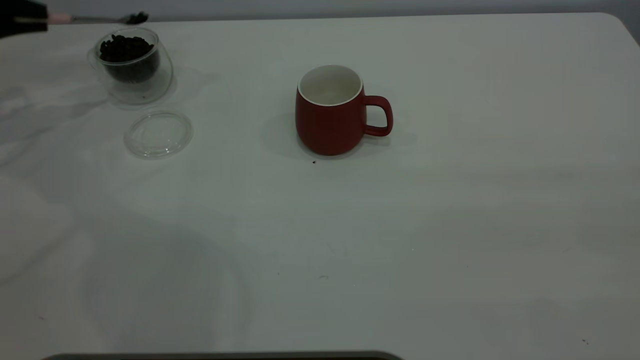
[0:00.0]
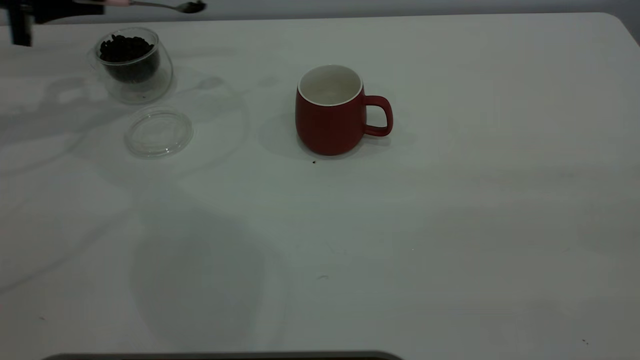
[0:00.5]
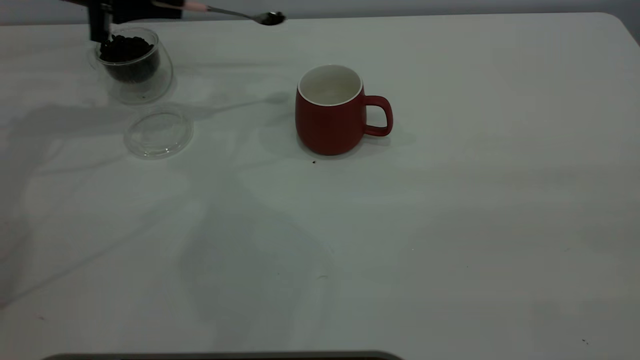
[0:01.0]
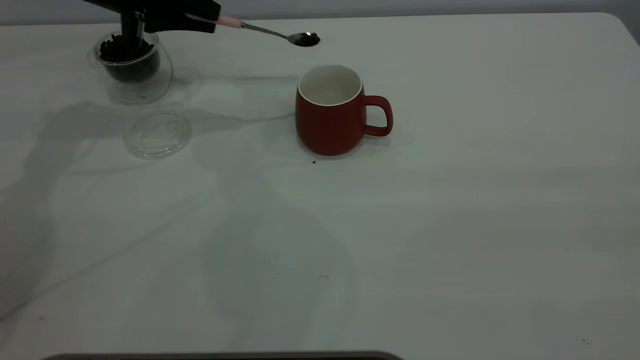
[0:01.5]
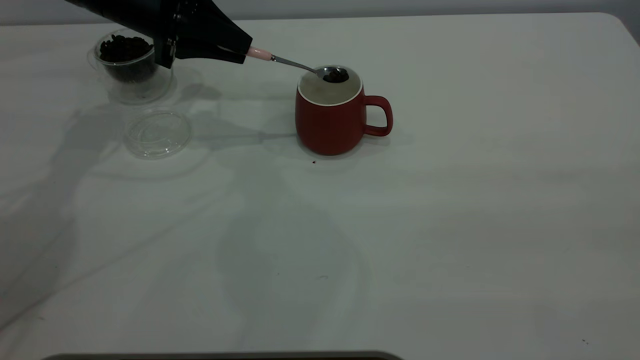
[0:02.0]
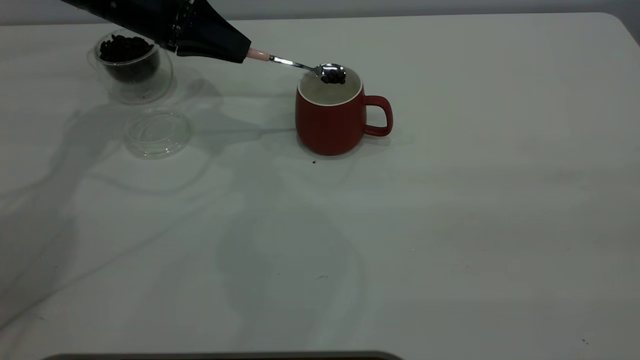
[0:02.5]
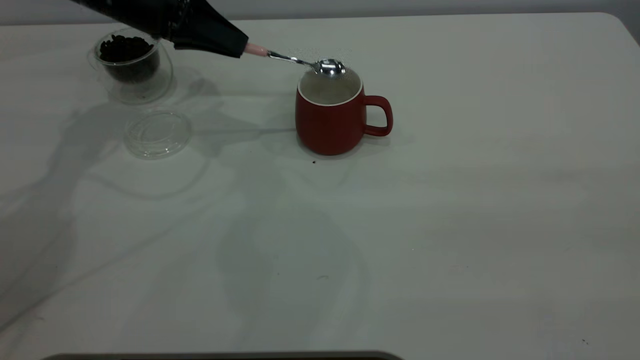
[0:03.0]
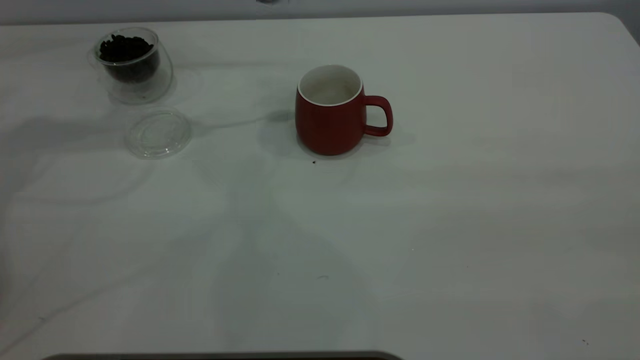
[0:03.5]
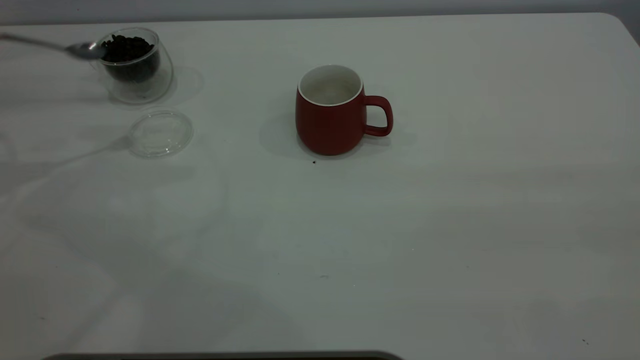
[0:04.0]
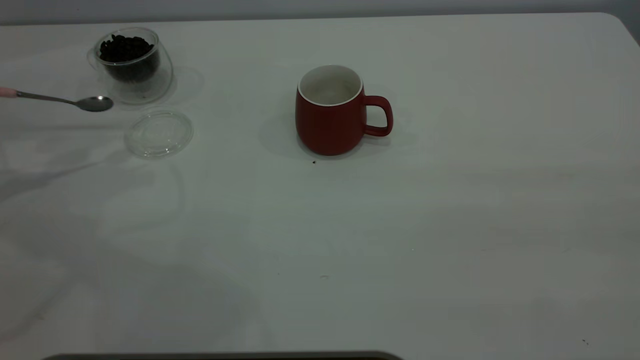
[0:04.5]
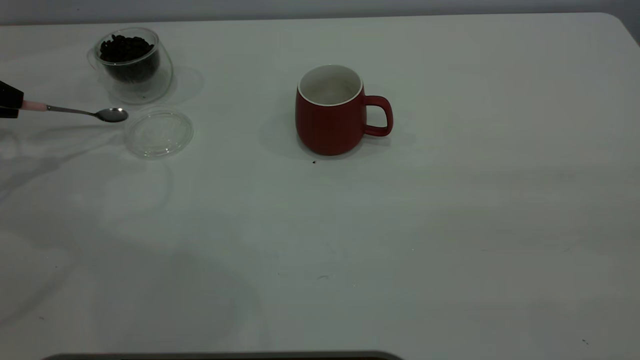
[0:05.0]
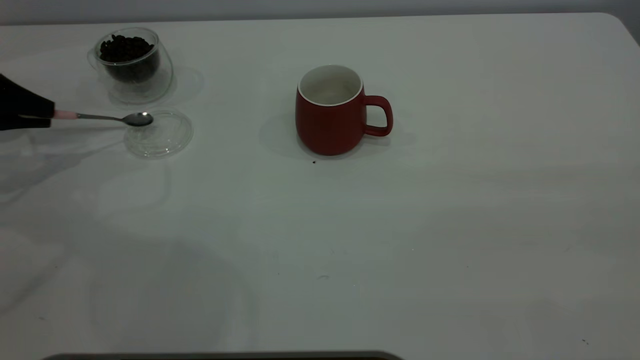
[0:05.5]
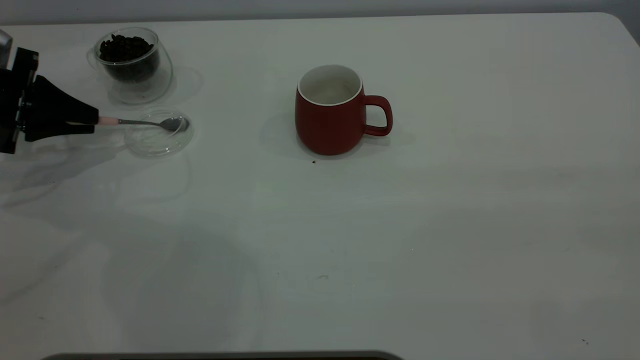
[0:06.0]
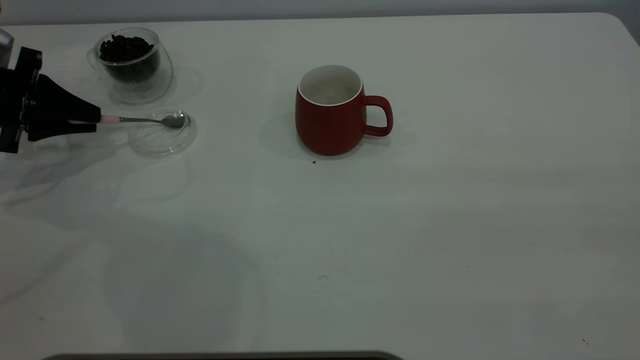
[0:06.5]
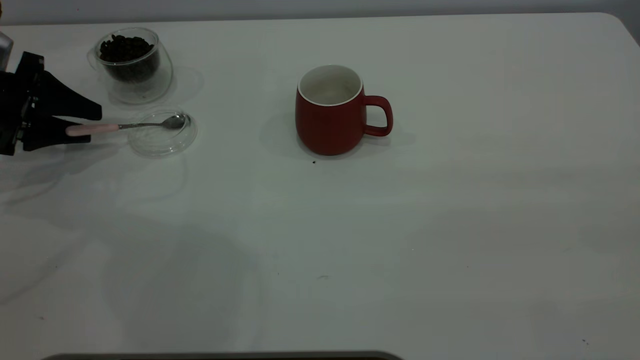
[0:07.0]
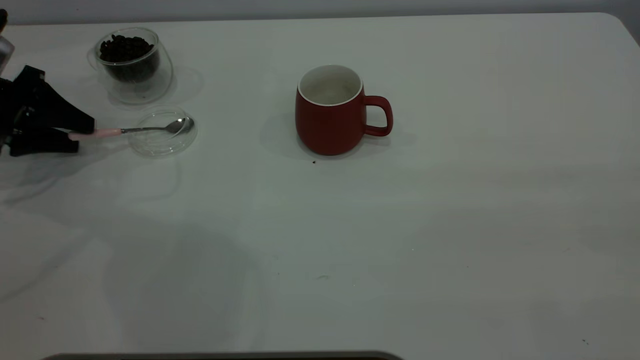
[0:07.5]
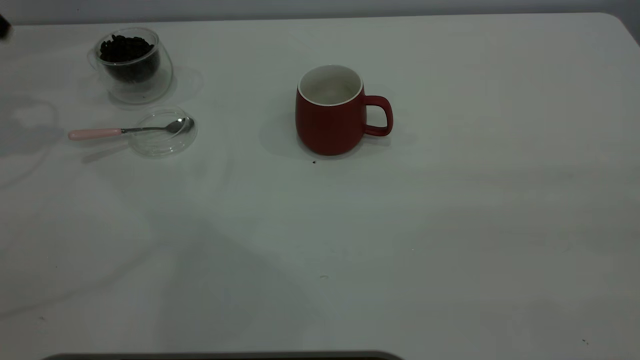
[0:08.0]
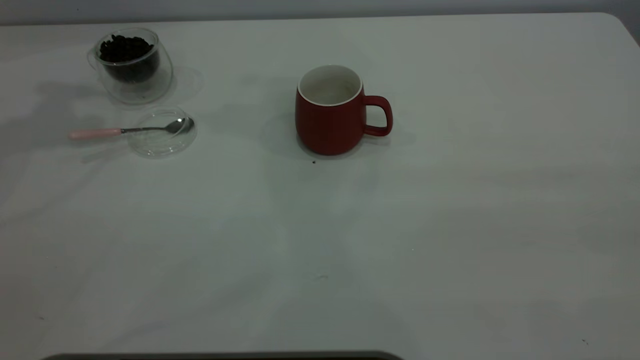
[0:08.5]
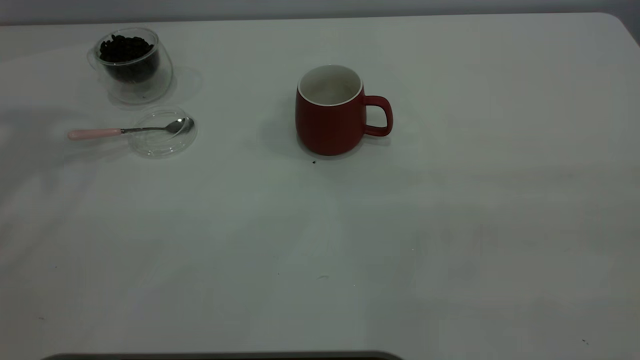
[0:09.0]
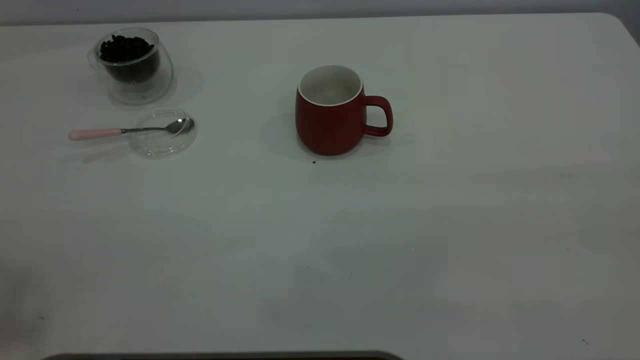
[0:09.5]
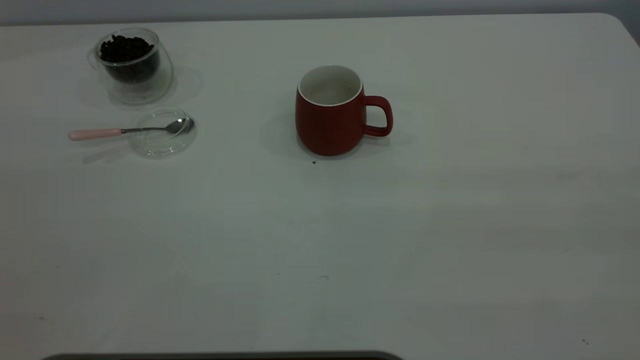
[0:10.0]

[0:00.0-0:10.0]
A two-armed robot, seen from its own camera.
Task of the whole recording: the right gripper place the red cup in the center of the table, the left gripper take the pink spoon from the cup lid and scoop out the coffee beans from the coffee cup and put them into the red cup, the left gripper put the spoon back into the cup lid.
Step, 0:00.0 to 0:03.0: Scoop a spoonful of beans into the cup.
Step, 0:03.5 to 0:07.5: Place the spoon back in its original place.
0:00.0 to 0:02.0: The left gripper is displaced to the right by about 25 cm.
0:02.0 to 0:04.0: The left gripper is displaced to the left and backward by roughly 25 cm.
0:04.0 to 0:06.0: The left gripper travels downward by about 15 cm.
0:06.0 to 0:08.0: The left gripper heads upward, covering some 15 cm, and opens.

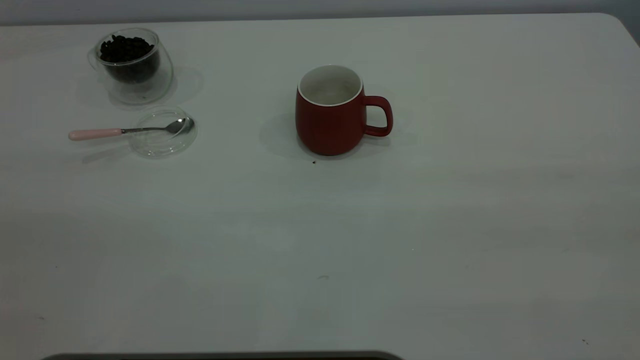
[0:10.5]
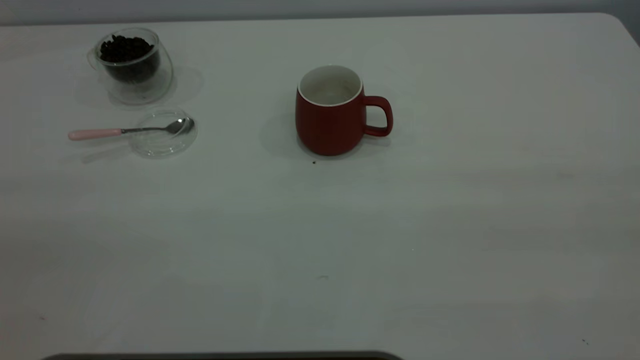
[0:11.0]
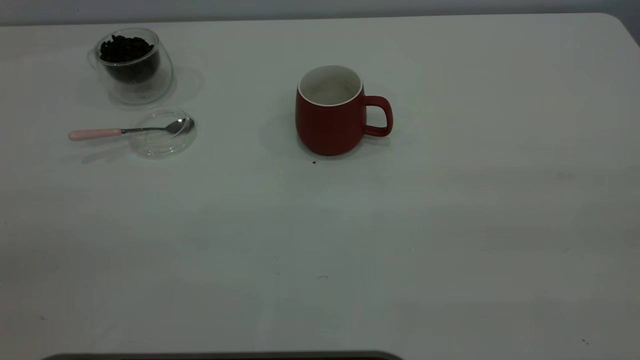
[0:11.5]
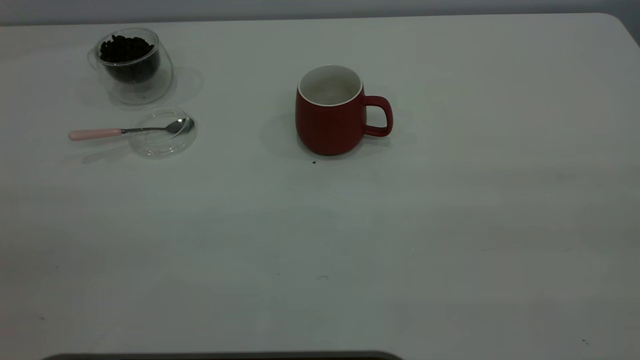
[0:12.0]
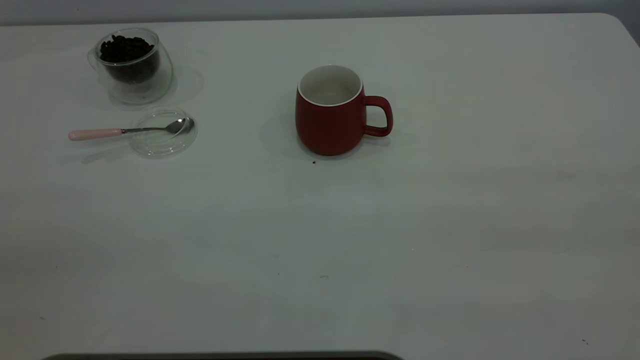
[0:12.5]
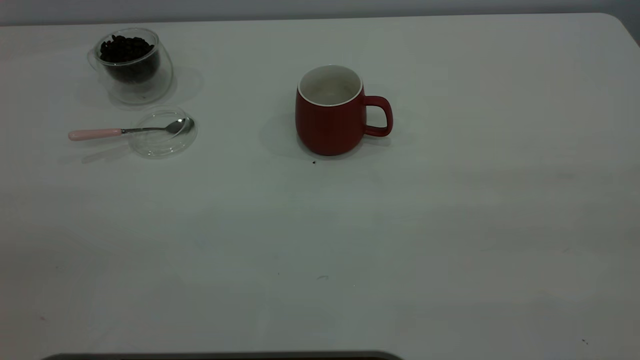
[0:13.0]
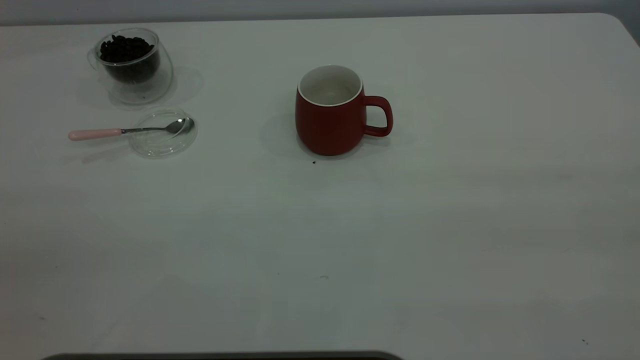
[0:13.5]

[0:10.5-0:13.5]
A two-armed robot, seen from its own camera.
Task of the whole recording: the right gripper place the red cup in the center of the table, the left gripper take the pink spoon from the cup lid and scoop out the coffee beans from the coffee cup and put them into the red cup, the left gripper put the spoon back into the cup lid.
0:12.0 to 0:13.5: Neither gripper changes place.

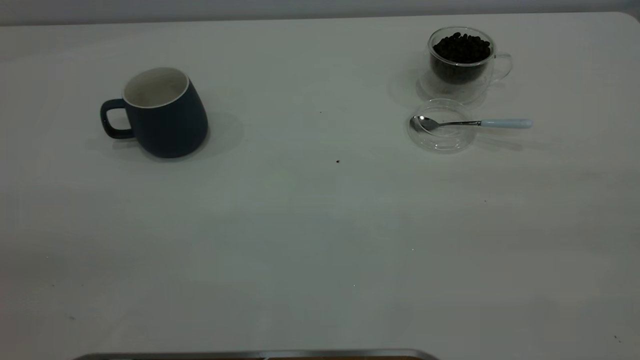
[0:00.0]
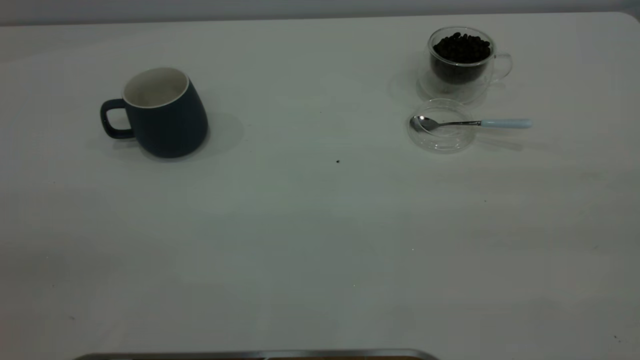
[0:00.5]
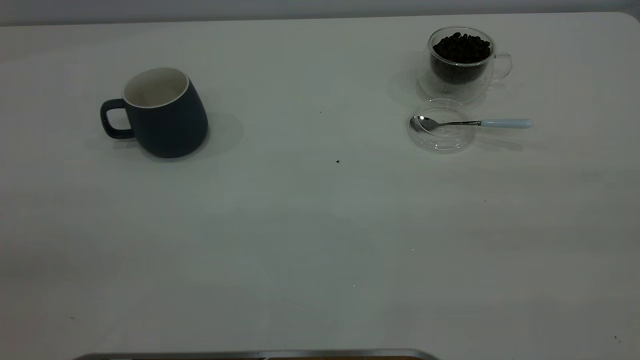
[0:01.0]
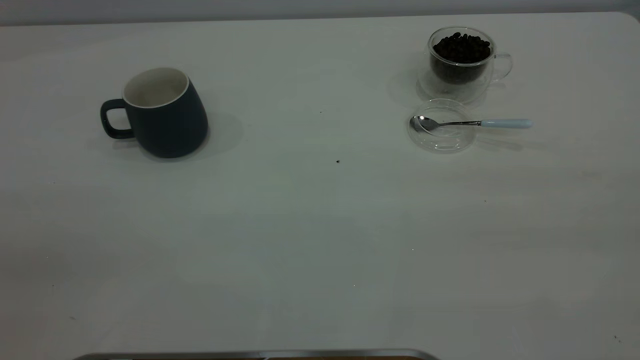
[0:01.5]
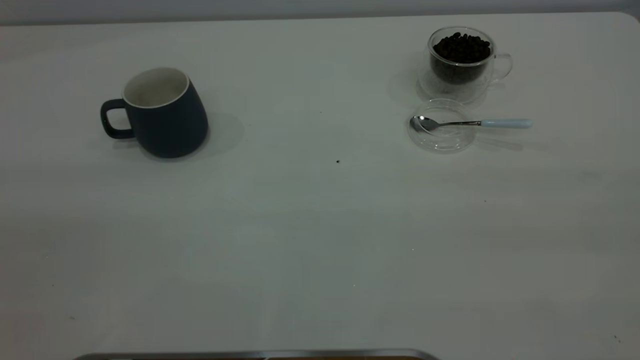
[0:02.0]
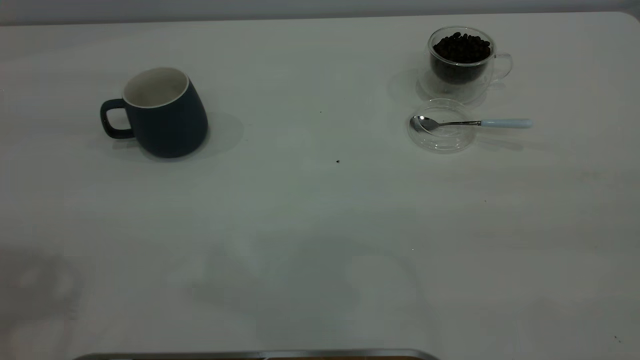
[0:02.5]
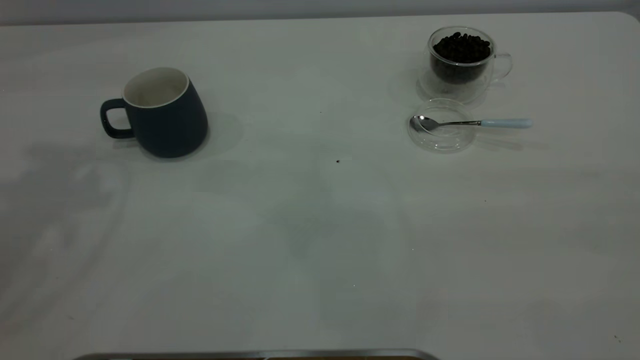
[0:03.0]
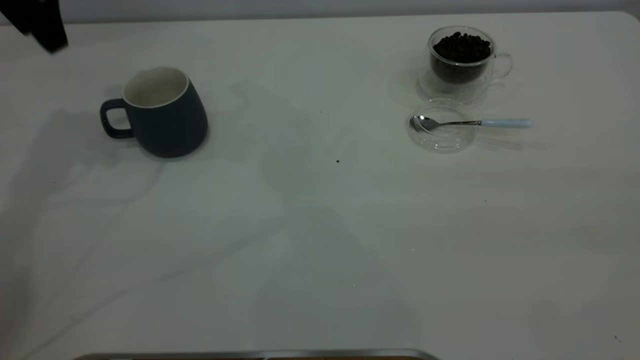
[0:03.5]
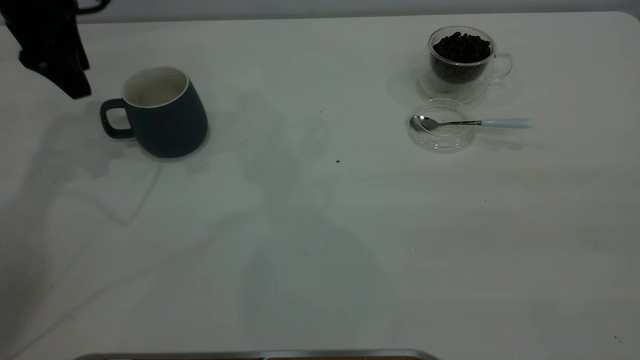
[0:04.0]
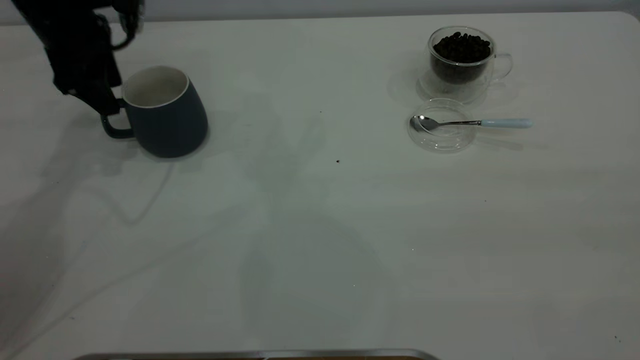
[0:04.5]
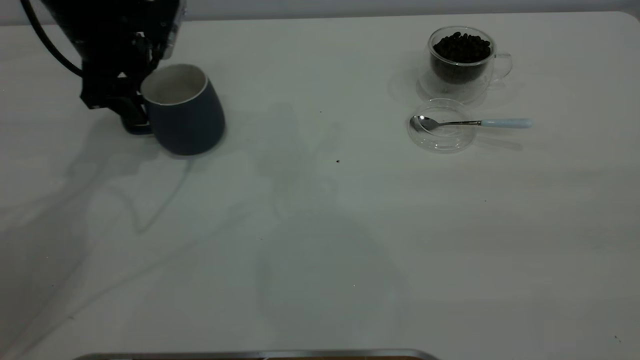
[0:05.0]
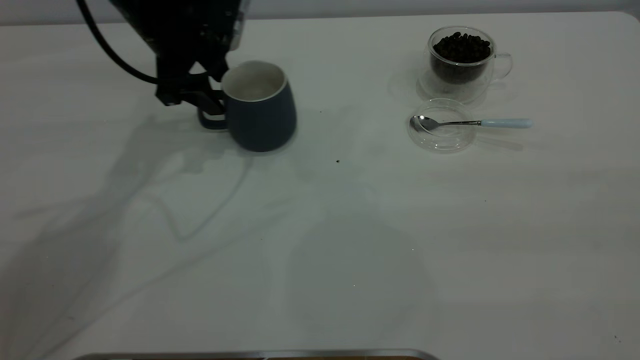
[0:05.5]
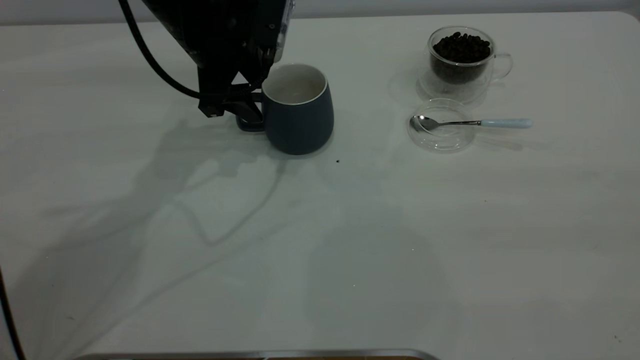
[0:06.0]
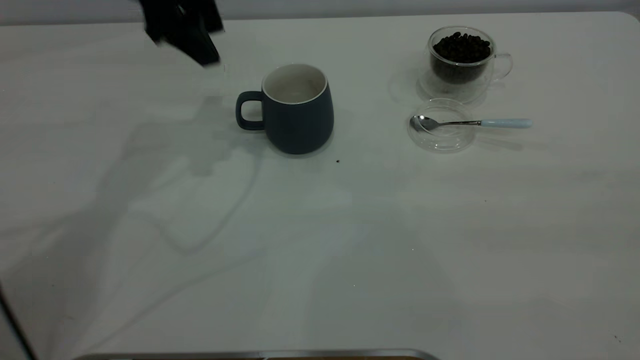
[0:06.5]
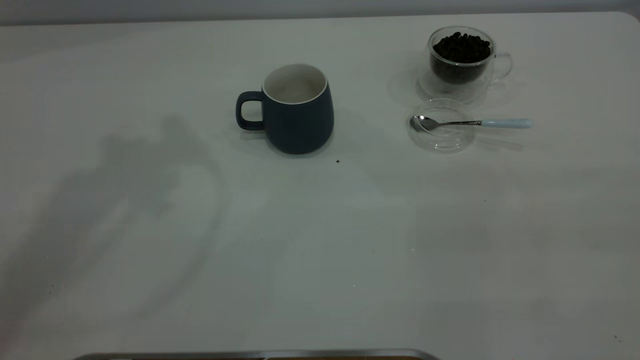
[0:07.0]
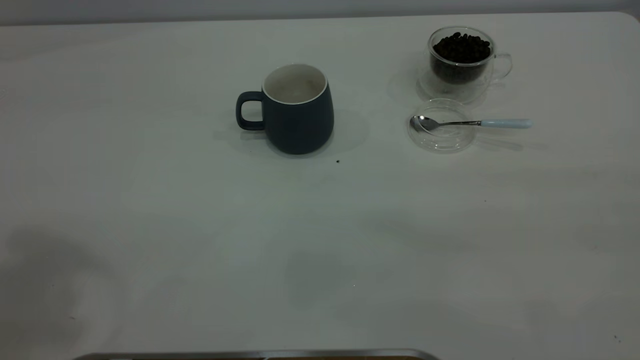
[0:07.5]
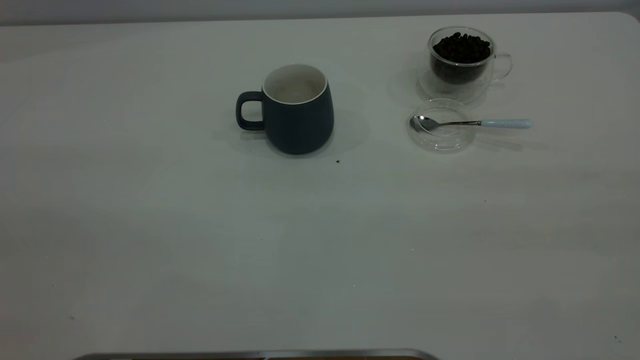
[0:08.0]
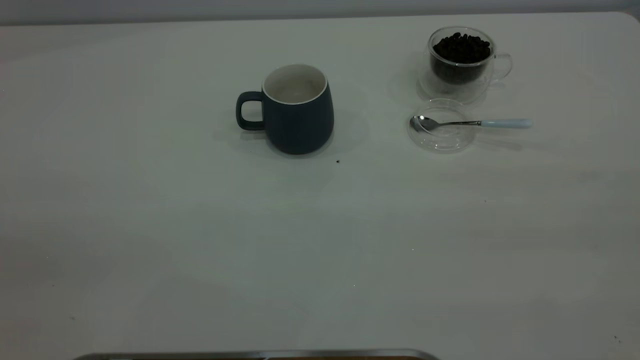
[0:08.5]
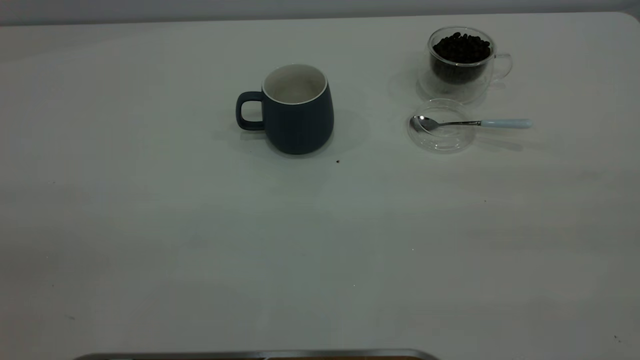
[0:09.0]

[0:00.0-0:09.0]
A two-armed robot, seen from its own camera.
Task of the whole recording: the left gripper place the grey cup in the center of the table, the right gripper take the blue spoon from the cup lid and scoop out the coffee beans from the coffee cup and put them into the grey cup, the right gripper put the spoon back into the cup lid.
Step, 0:00.0 to 0:06.0: Move the cup to the center of view.
0:02.0 to 0:04.5: The left gripper moves forward and downward, approximately 50 cm, and opens.
0:04.5 to 0:07.0: The left gripper is displaced upward and backward by approximately 30 cm.
